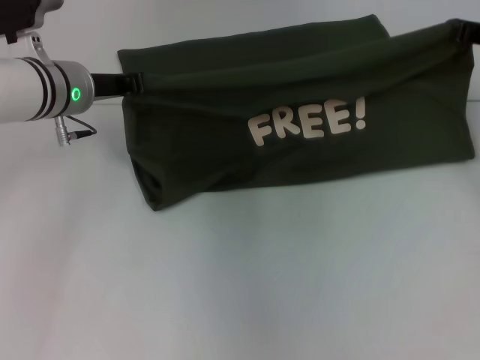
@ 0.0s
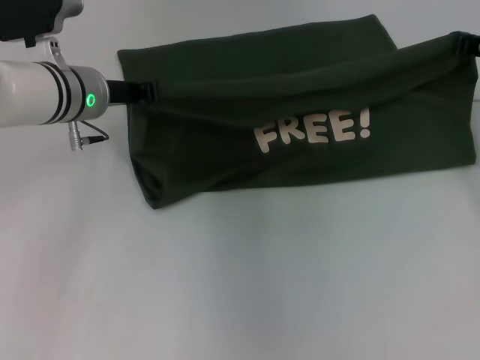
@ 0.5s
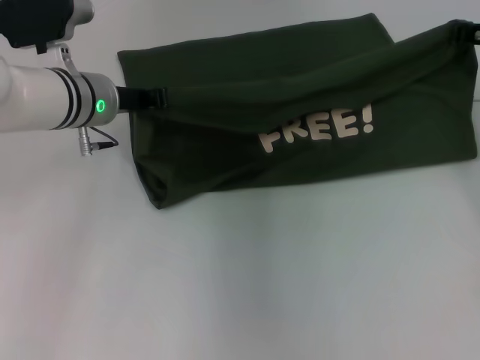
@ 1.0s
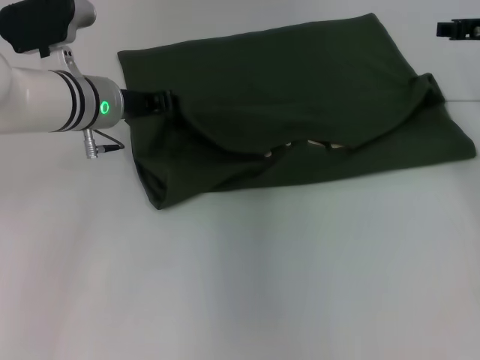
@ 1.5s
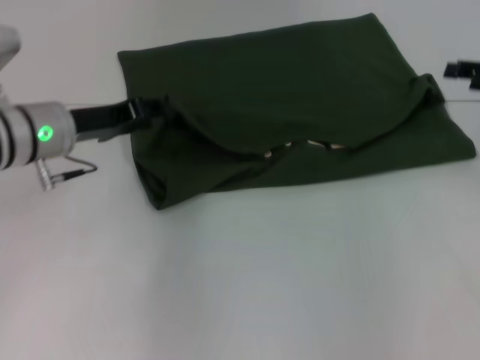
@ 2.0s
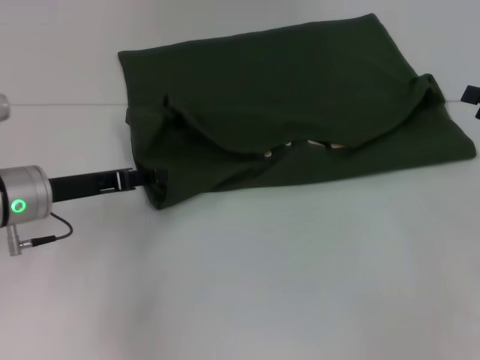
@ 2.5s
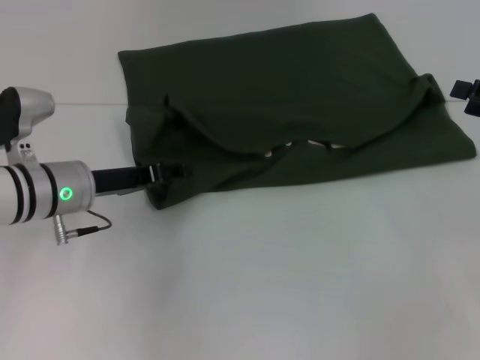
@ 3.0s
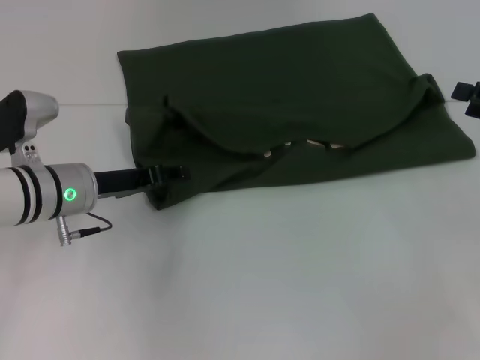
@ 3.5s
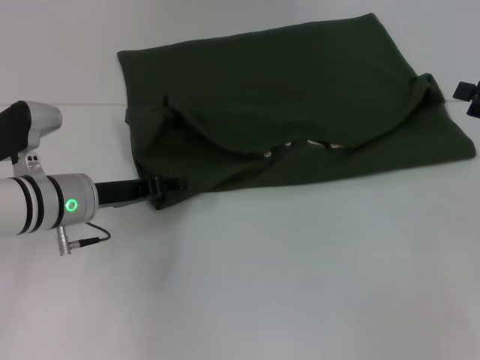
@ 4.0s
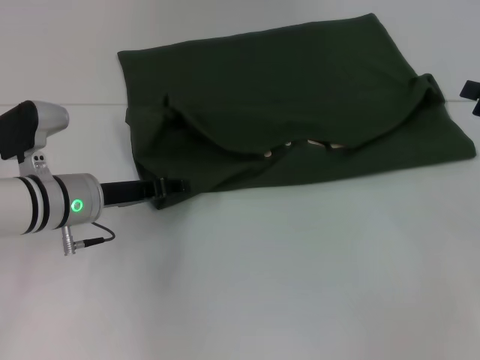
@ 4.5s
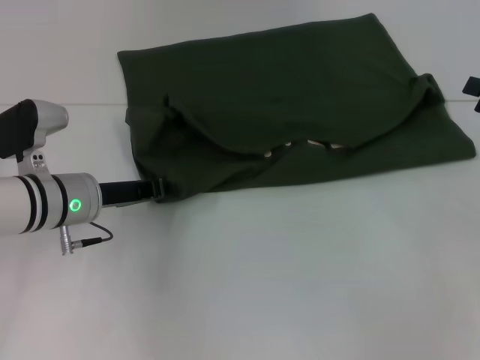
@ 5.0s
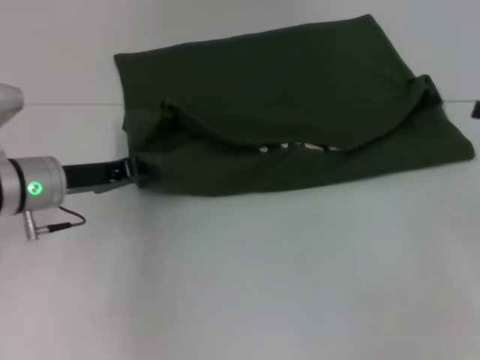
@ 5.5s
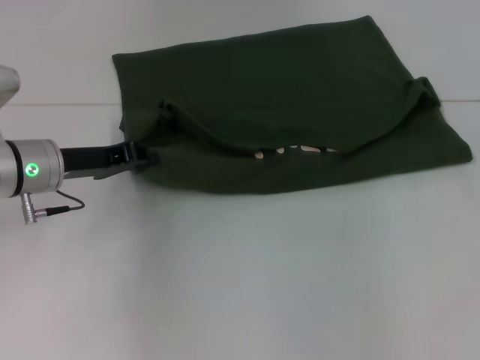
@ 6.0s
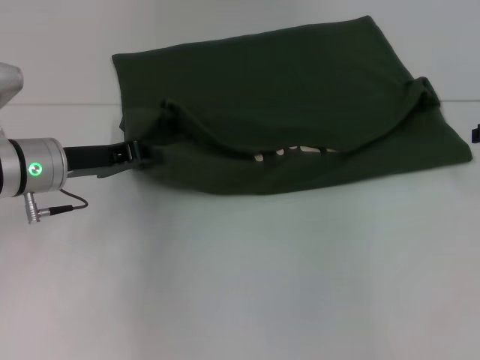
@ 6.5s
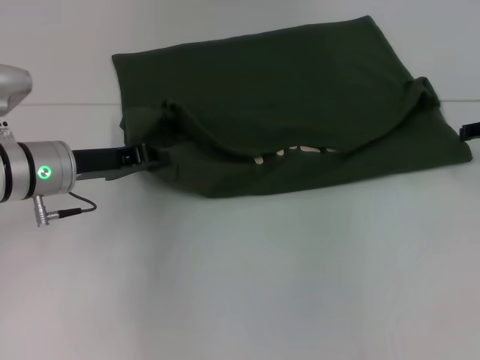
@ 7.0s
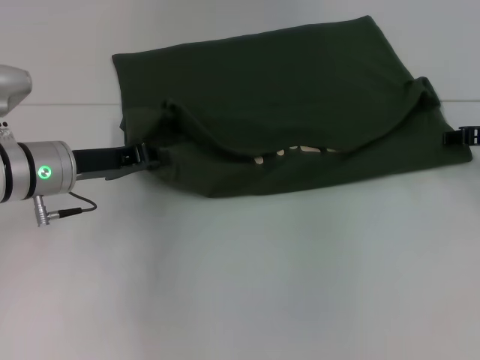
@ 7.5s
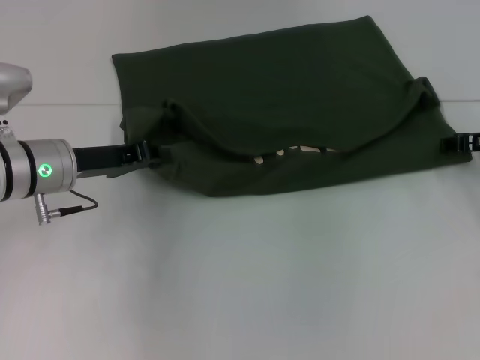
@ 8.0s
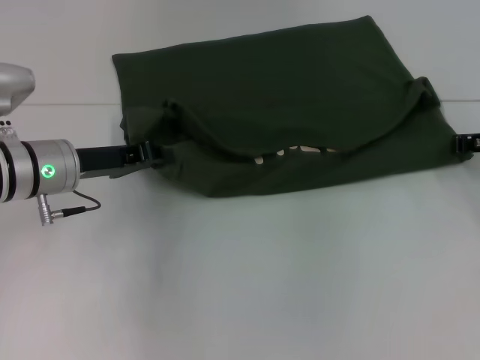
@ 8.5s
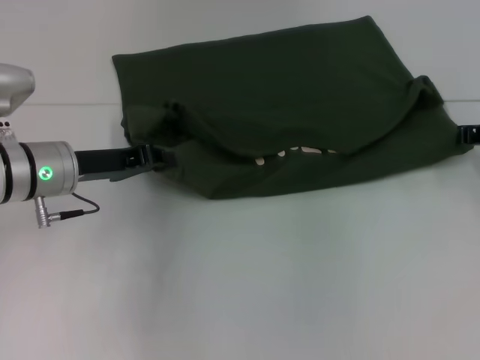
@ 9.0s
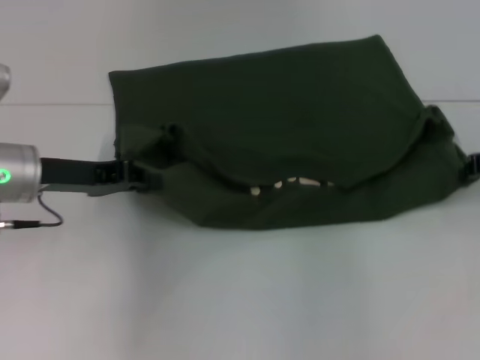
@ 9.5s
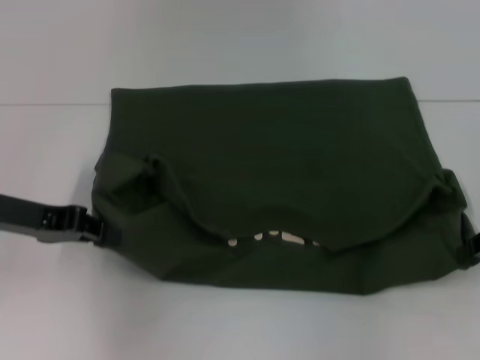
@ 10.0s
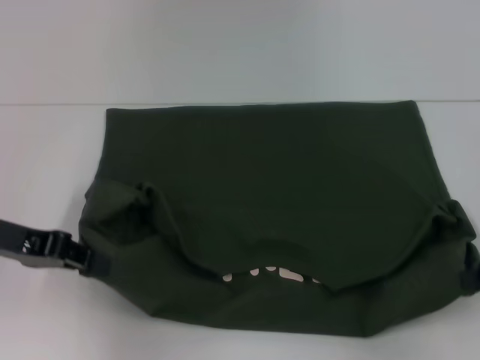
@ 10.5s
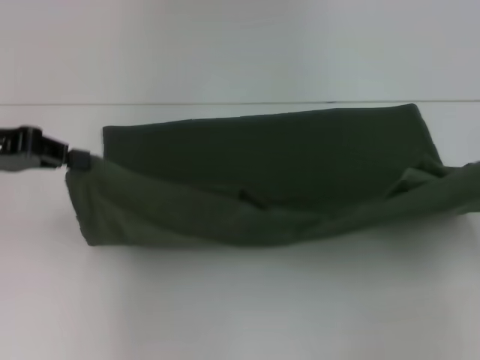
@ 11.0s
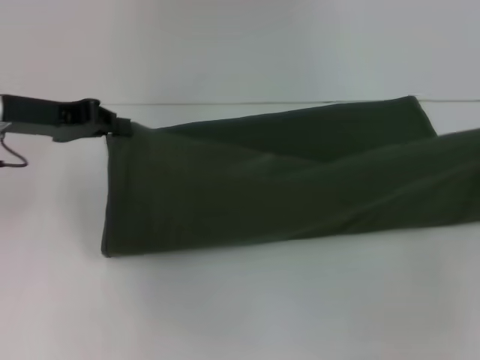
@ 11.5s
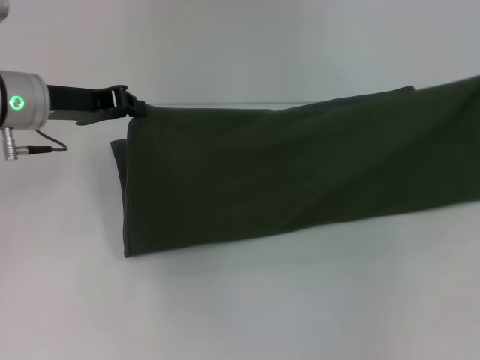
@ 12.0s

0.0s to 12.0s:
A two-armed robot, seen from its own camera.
Step, 0.0s to 2.0s: Fold the clothes with your left hand.
Step, 0.0s to 2.0s: Fold the clothes with your right hand.
Step, 2.5s to 10.0s: Pull the clothes with your left hand.
Step, 2.5s to 10.0s: Pull the clothes with your right hand.
0.0s to 2.0s: The left gripper shifts by roughly 5 cm, and opens; the right gripper shifts approximately 5 cm backward, and opens up.
2.0s to 4.0s: The right gripper goes approximately 5 cm backward, while the left gripper travels downward by roughly 5 cm.
4.0s to 6.0s: The right gripper changes place by roughly 5 cm, while the left gripper moves about 5 cm, and closes its fingers.
6.0s to 8.0s: The right gripper heads downward and to the left, covering some 10 cm.
8.0s to 10.0s: The right gripper moves backward and upward, some 10 cm, and closes. The left gripper goes roughly 5 cm to the left.
10.0s to 12.0s: Both grippers travel together forward, roughly 10 cm.

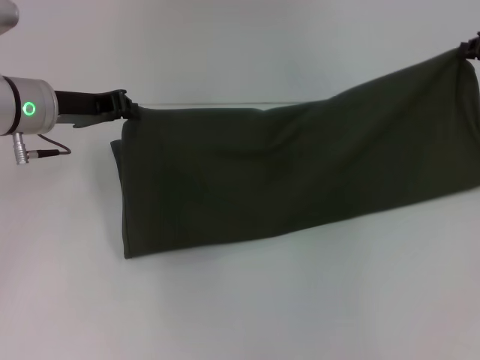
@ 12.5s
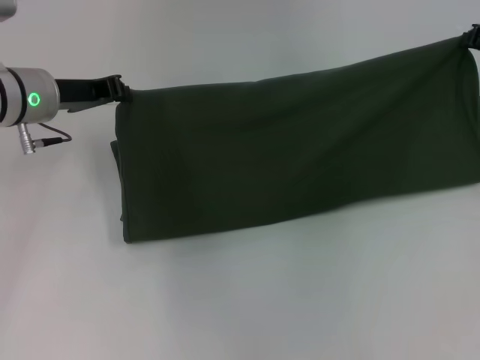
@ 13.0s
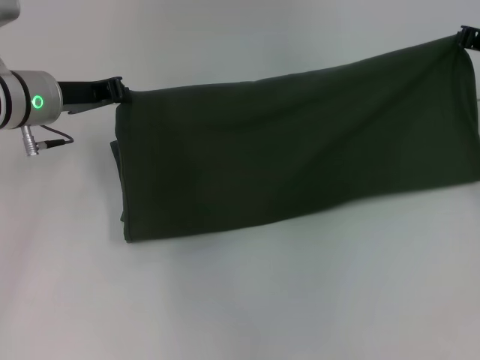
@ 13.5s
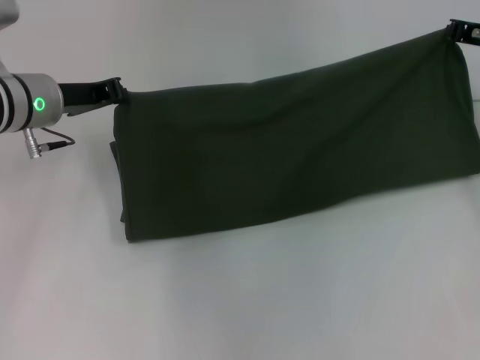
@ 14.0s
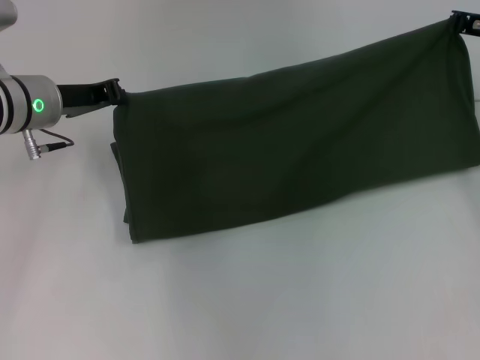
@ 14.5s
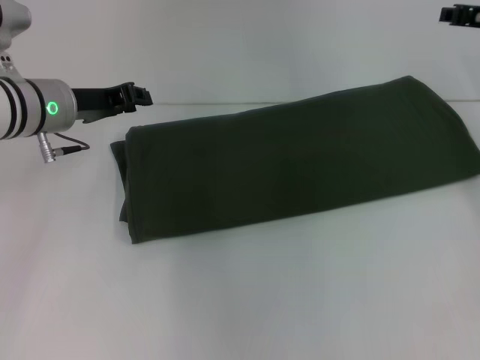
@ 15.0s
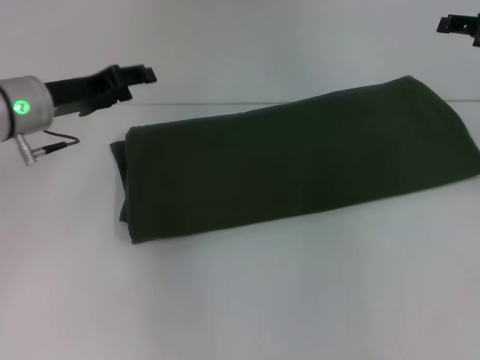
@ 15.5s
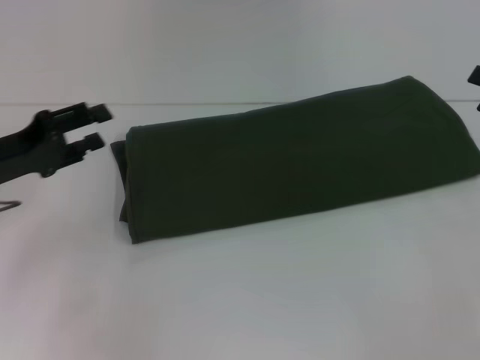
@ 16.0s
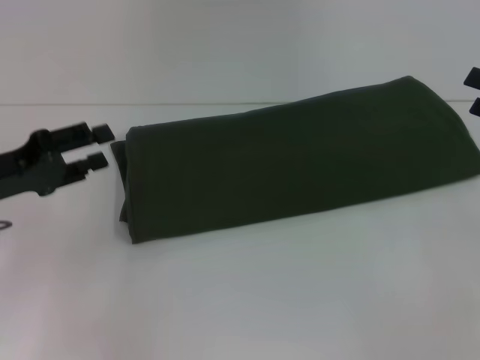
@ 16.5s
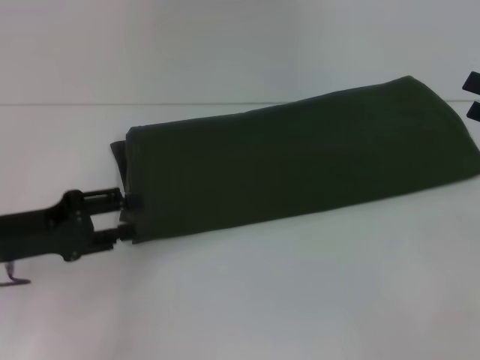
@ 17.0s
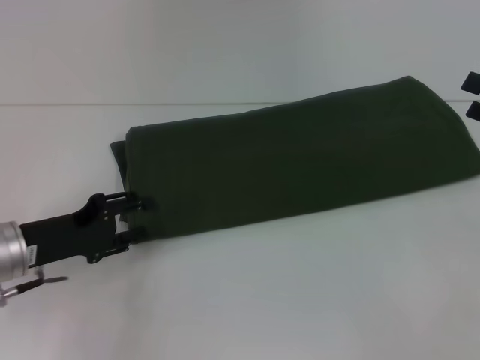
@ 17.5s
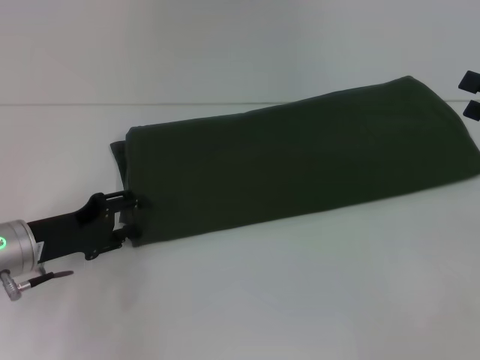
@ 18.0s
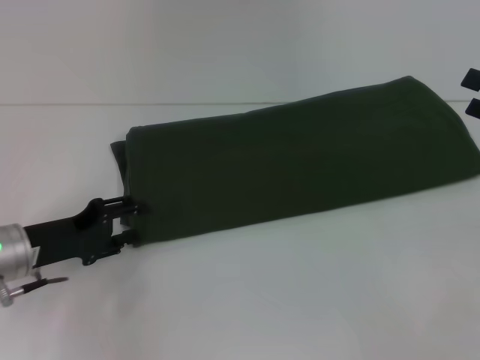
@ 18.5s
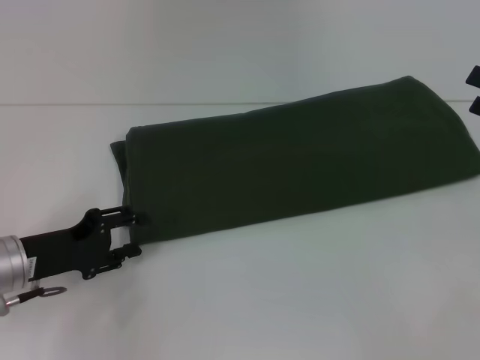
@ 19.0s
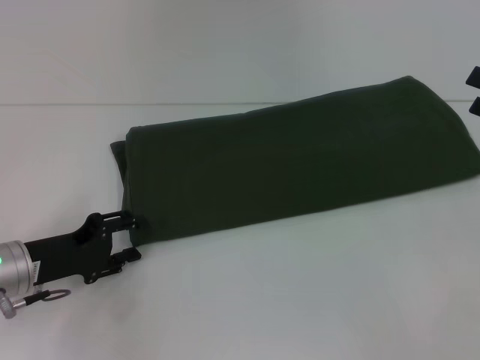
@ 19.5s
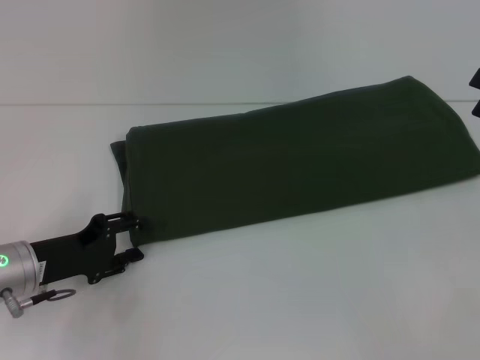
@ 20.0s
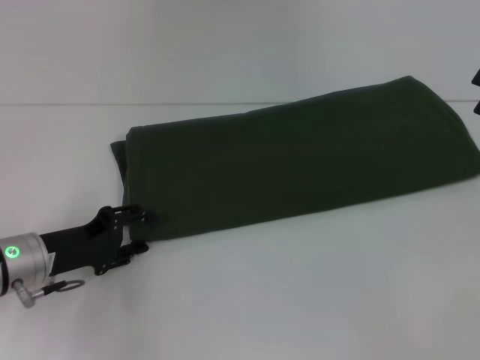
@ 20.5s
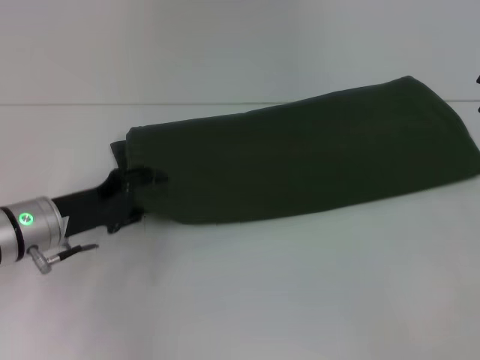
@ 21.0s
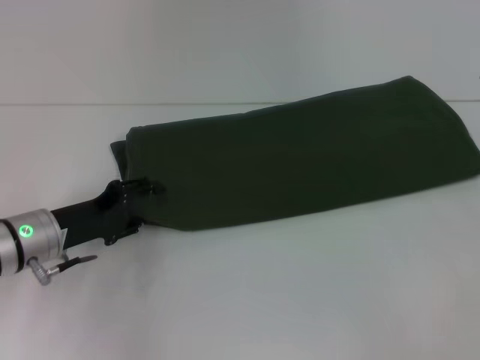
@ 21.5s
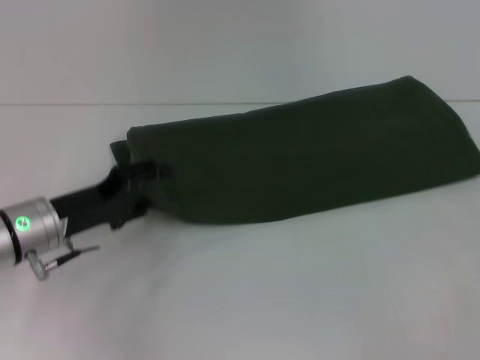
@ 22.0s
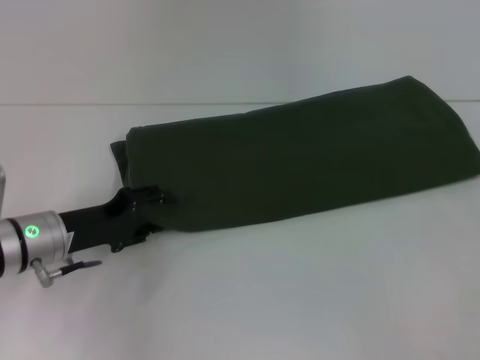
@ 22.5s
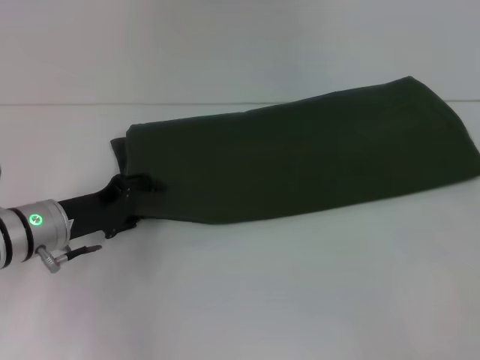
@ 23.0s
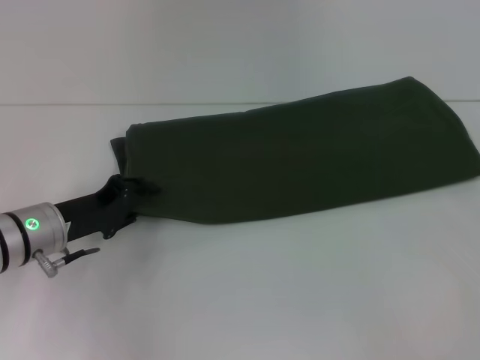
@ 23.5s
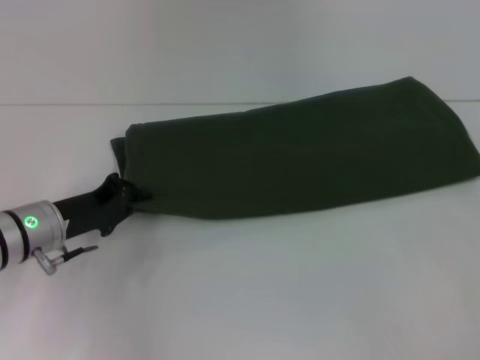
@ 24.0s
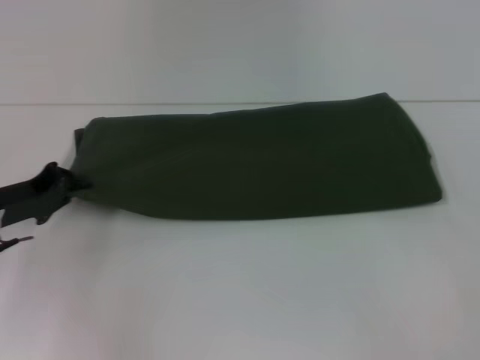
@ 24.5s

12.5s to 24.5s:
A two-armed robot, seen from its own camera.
Step, 12.5s to 14.5s: Fold the clothes with your right hand.
12.5s to 14.5s: The right gripper moves some 5 cm.
14.5s to 16.5s: The left gripper moves backward and to the left, approximately 15 cm, and opens up. The right gripper shifts some 15 cm backward and to the right, and opens.
16.5s to 18.5s: The left gripper is displaced downward by approximately 5 cm.
18.5s to 22.5s: There are only small adjustments of the grippers.
22.5s to 24.5s: The left gripper goes about 5 cm to the left, and closes up.

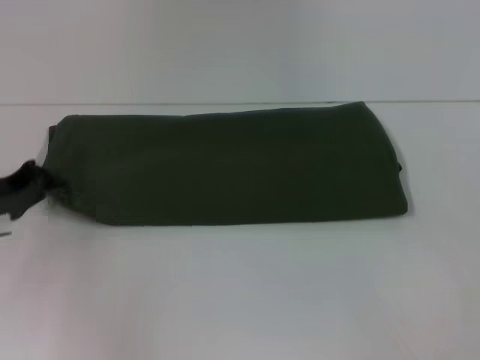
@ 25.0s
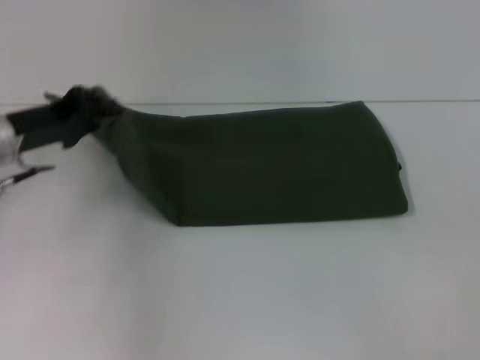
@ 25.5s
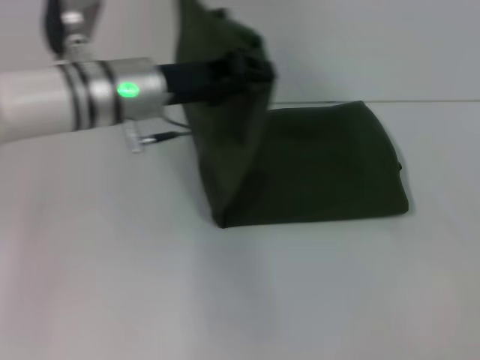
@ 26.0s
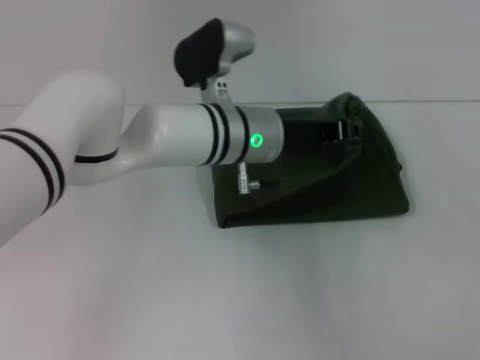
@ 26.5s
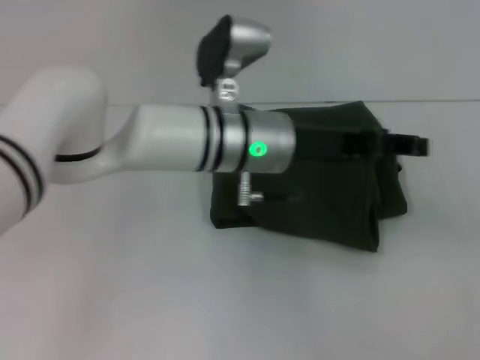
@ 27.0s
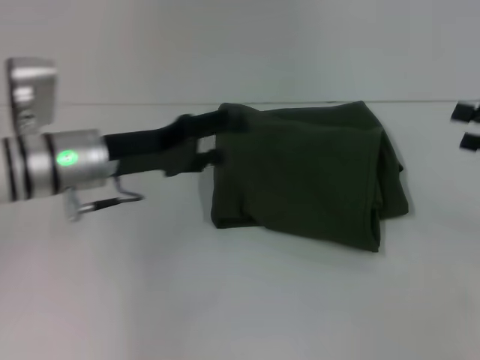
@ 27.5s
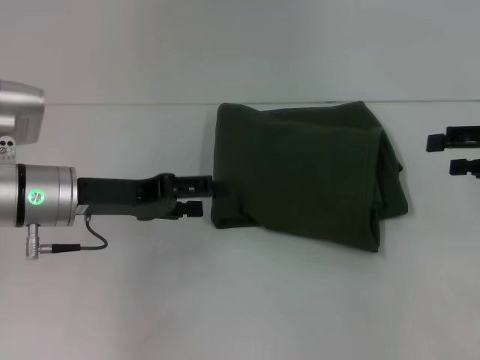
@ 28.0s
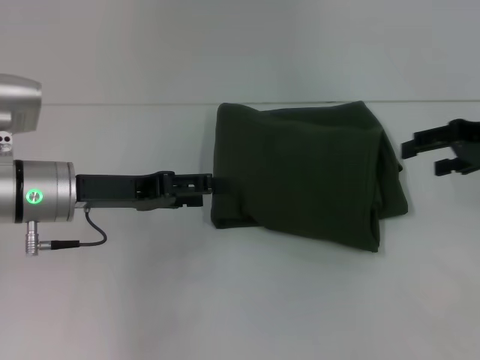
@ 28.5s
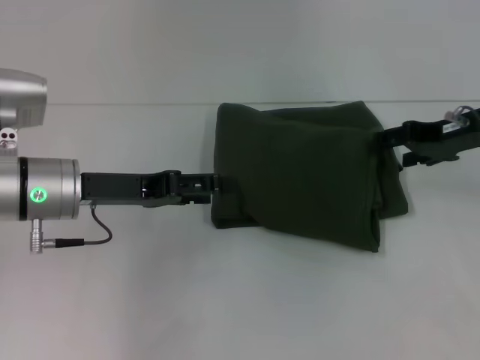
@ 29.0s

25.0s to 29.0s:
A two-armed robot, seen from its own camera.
25.0s to 27.0s: The left gripper shifts roughly 30 cm to the right, and opens.
27.0s to 29.0s: The left gripper heads to the left, covering about 20 cm, and opens up, while the right gripper goes some 15 cm to the left and forward.
